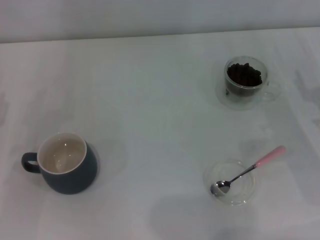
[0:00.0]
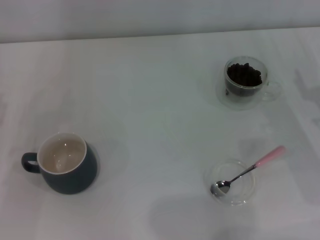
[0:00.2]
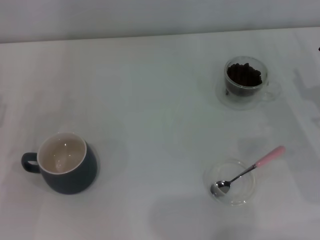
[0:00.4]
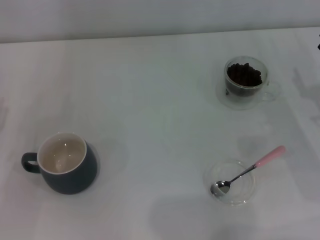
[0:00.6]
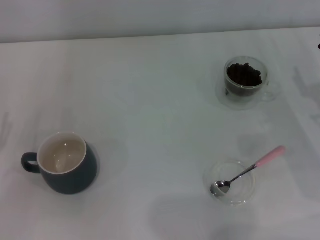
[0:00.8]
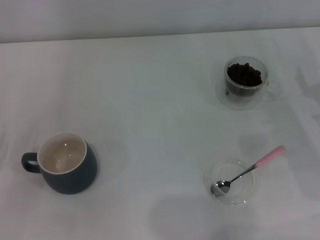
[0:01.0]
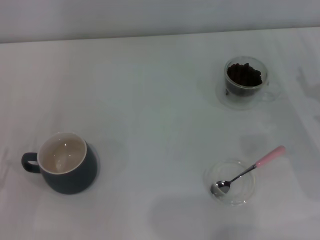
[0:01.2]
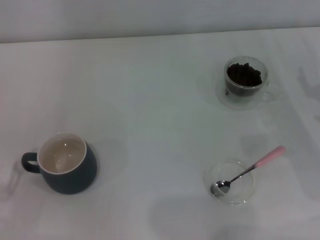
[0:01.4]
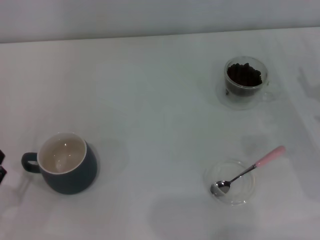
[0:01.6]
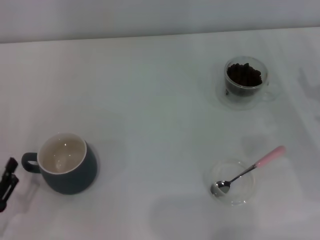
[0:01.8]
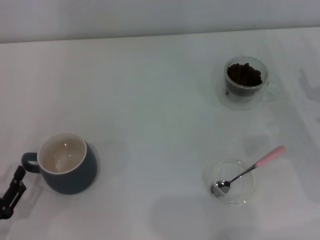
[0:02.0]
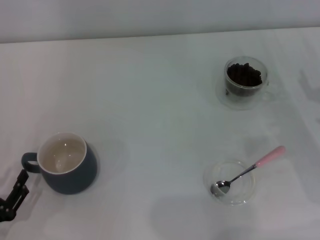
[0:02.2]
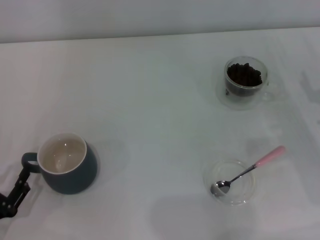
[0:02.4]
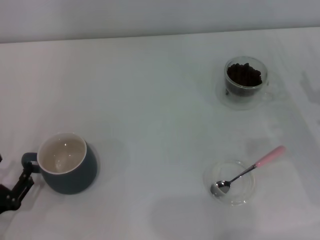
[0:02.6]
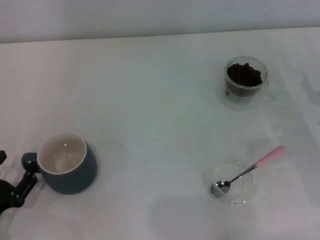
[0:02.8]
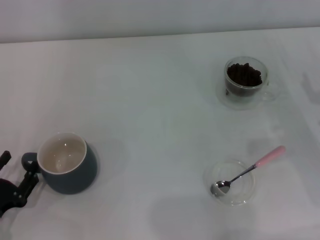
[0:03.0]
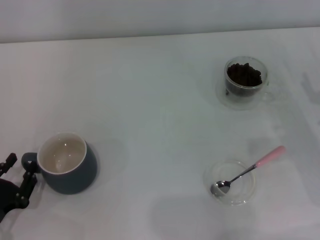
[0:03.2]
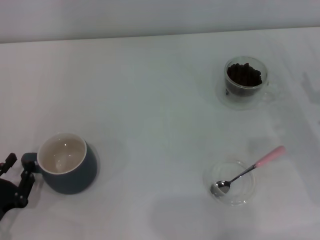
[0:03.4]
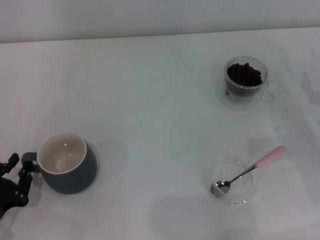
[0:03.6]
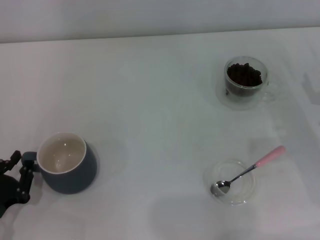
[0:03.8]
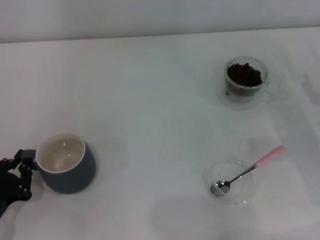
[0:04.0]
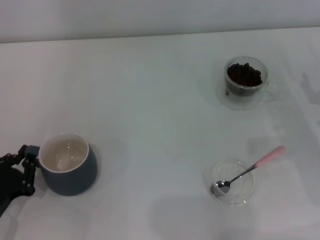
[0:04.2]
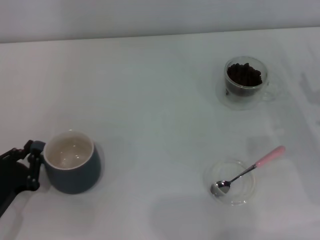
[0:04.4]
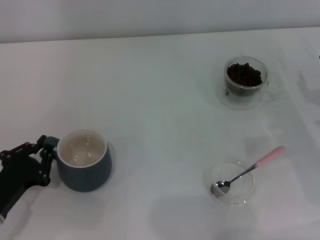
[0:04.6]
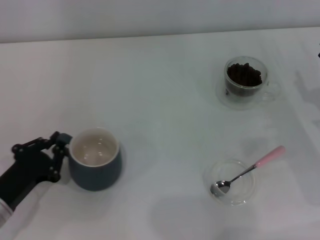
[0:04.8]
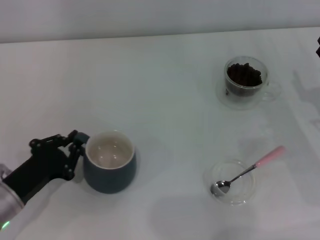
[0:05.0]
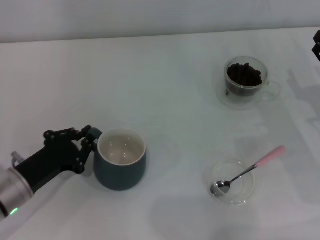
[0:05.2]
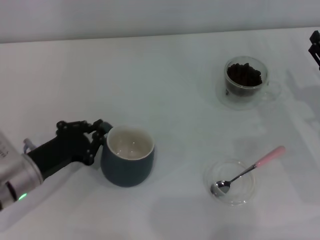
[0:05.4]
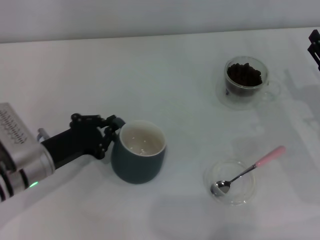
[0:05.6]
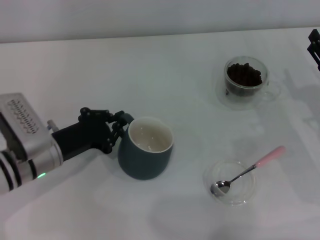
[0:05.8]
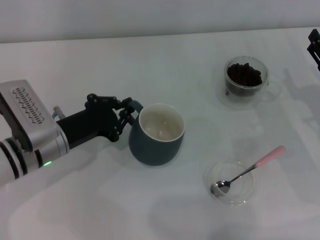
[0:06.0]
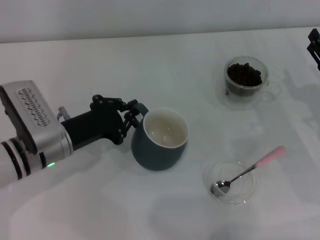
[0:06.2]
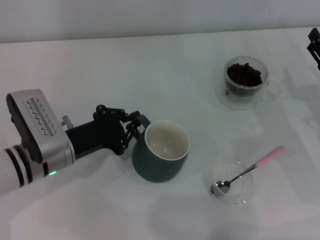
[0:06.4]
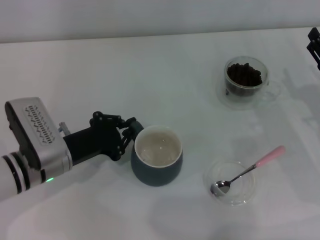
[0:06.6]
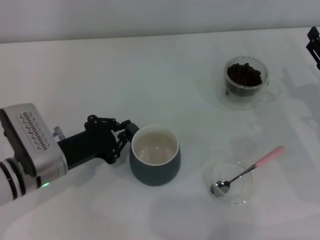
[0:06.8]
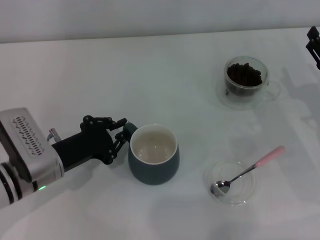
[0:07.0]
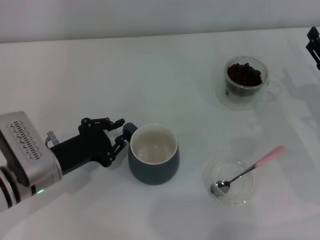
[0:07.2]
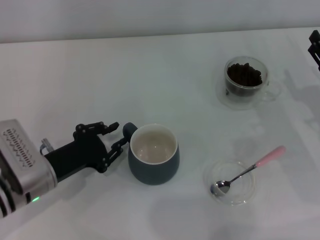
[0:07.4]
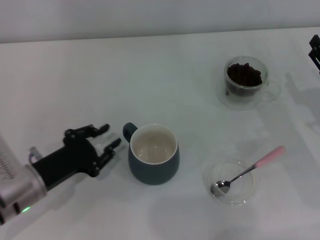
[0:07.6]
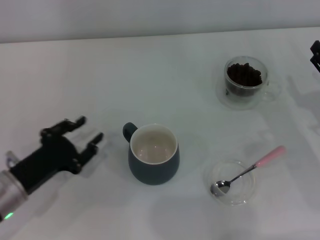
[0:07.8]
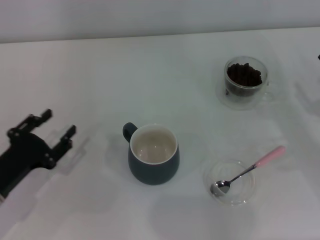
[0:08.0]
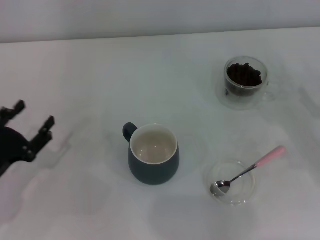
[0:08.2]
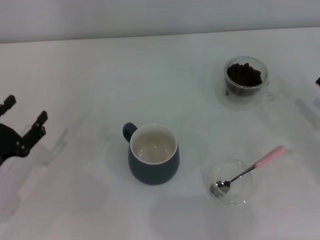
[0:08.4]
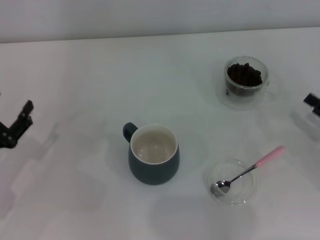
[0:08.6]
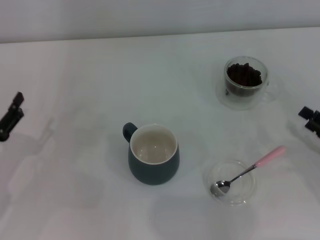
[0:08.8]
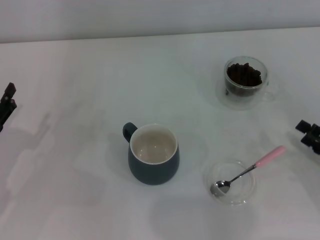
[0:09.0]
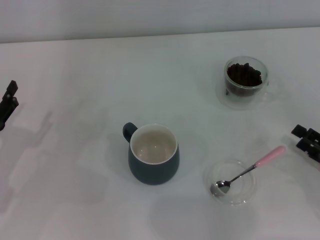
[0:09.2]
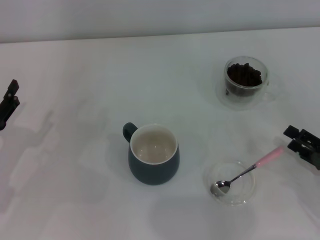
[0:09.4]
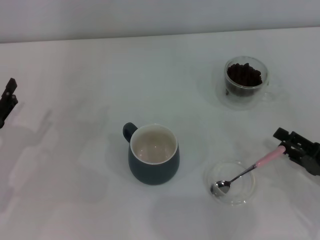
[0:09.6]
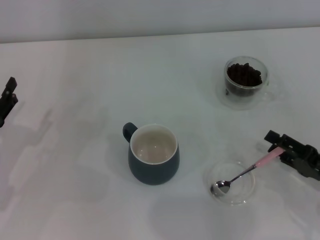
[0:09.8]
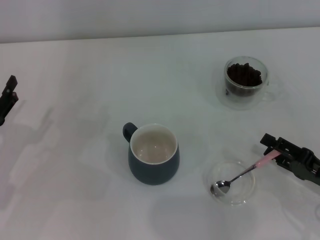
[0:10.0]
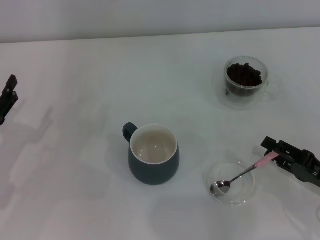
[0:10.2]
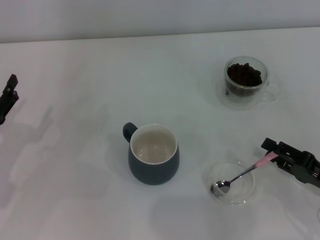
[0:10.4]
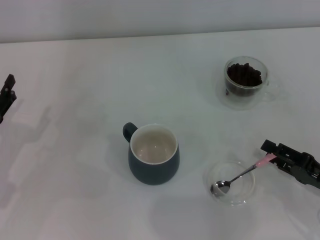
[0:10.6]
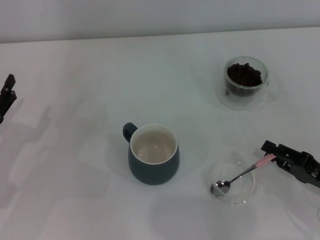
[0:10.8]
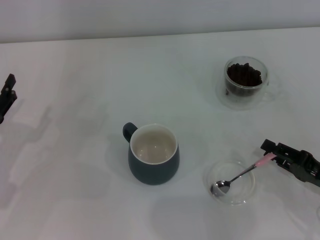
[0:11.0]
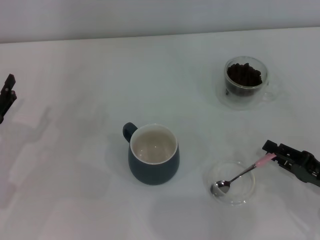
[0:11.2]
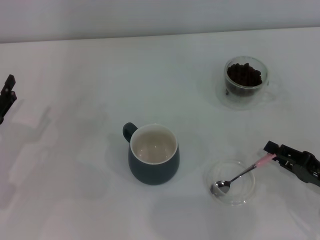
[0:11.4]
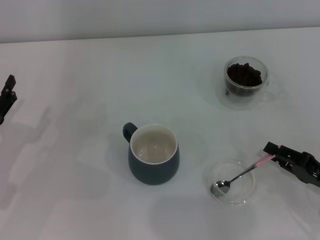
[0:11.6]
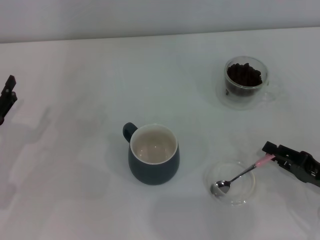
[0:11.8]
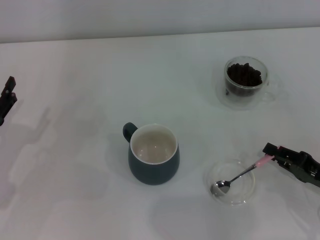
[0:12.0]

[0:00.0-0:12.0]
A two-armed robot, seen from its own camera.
Task of the whole recording: Use a pink spoon to take out the coffee beans from the glass and pour them into the gray cup.
Step, 0:00.0 to 0:07.6: Move the cup to the center of view with the left gripper.
0:01.6 to 0:03.0: The grippers make only small movements.
0:03.0 to 0:04.4: The left gripper closes.
0:04.4 to 0:06.0: The left gripper heads forward and to the right, covering about 15 cm.
0:06.0 to 0:07.6: The left gripper is displaced backward by approximately 5 cm, and opens.
0:07.6 to 0:09.0: The left gripper goes roughly 10 cm to the left, and opens up. Meanwhile the right gripper goes some 10 cm backward.
0:09.0 to 0:10.4: The grippers make only small movements.
0:10.4 to 0:12.0: The right gripper closes.

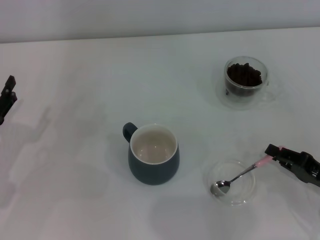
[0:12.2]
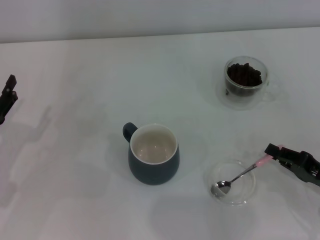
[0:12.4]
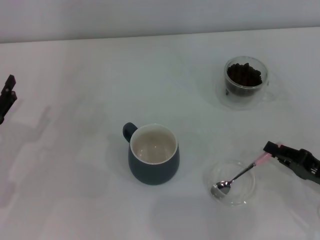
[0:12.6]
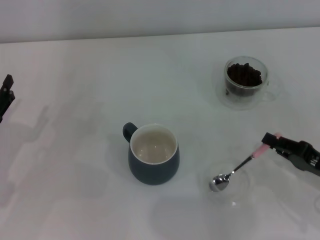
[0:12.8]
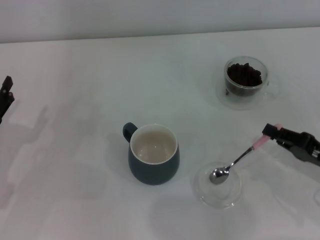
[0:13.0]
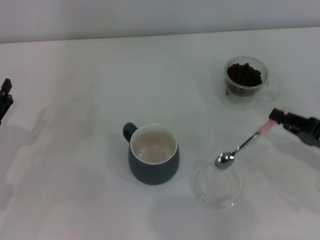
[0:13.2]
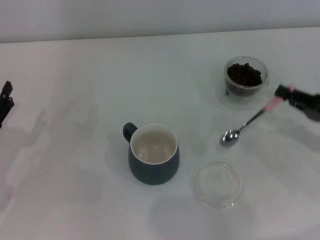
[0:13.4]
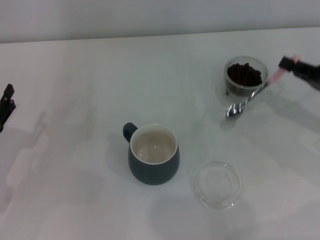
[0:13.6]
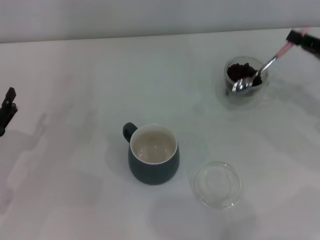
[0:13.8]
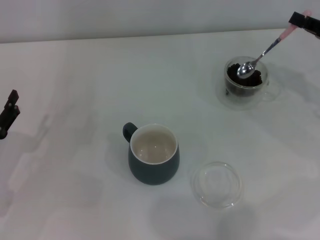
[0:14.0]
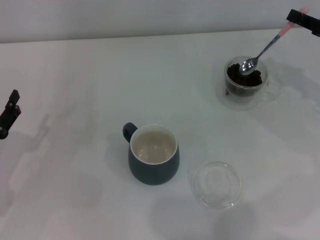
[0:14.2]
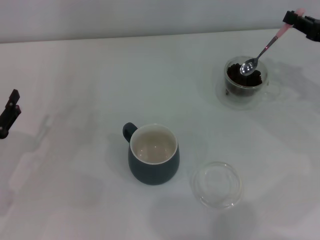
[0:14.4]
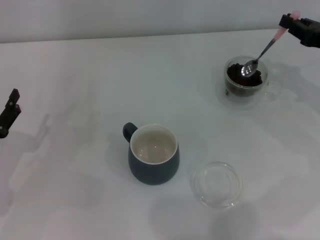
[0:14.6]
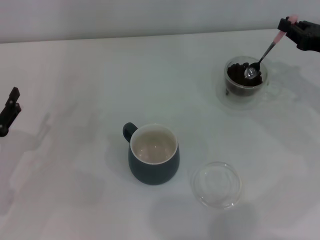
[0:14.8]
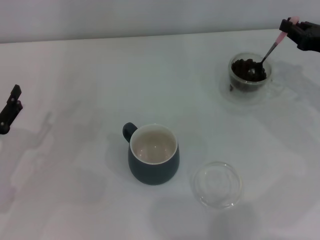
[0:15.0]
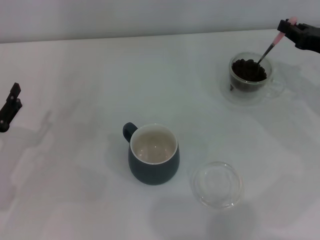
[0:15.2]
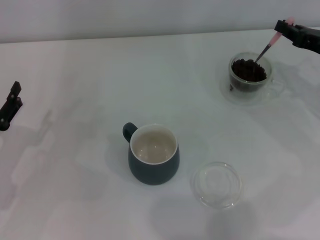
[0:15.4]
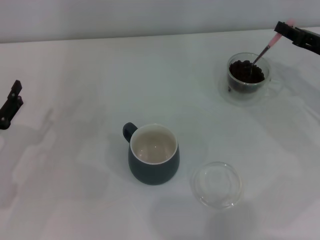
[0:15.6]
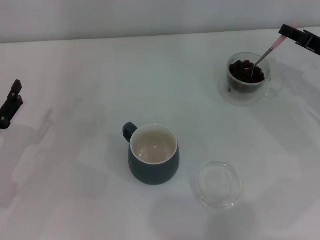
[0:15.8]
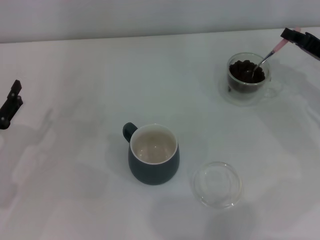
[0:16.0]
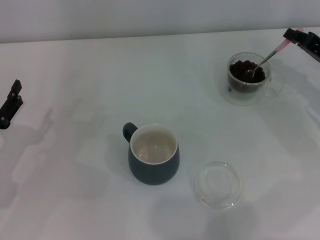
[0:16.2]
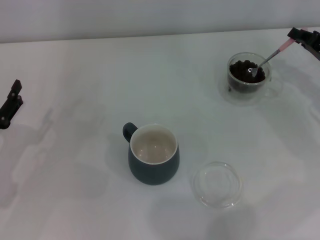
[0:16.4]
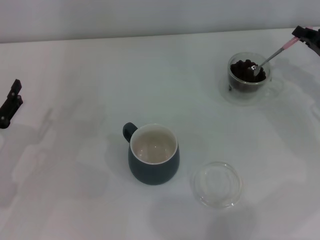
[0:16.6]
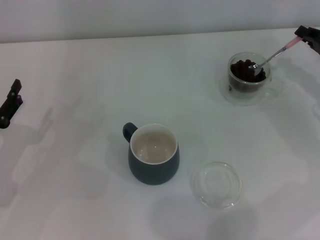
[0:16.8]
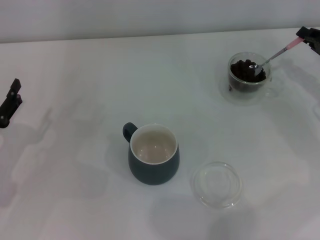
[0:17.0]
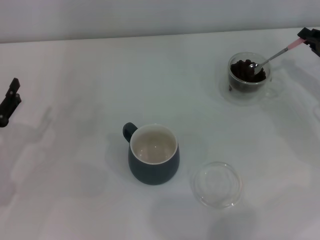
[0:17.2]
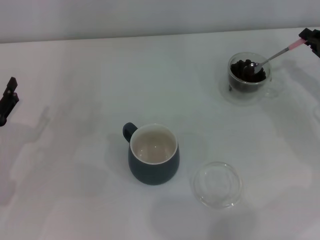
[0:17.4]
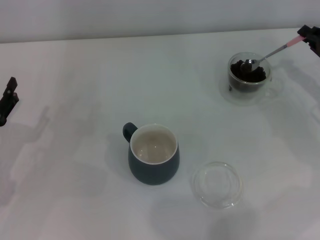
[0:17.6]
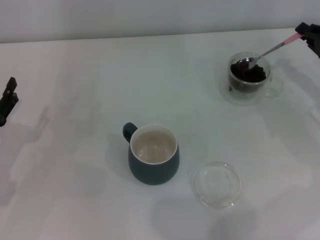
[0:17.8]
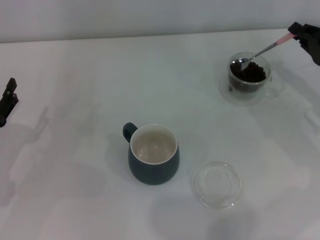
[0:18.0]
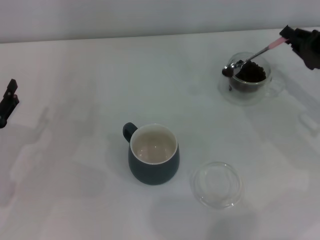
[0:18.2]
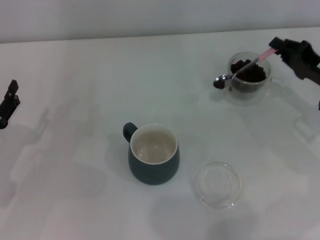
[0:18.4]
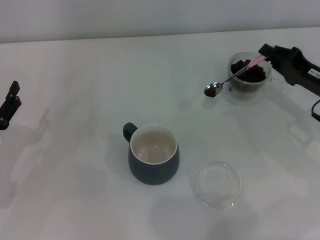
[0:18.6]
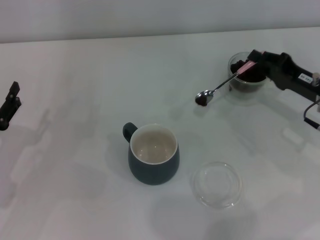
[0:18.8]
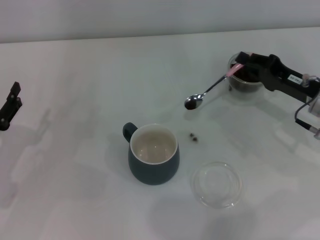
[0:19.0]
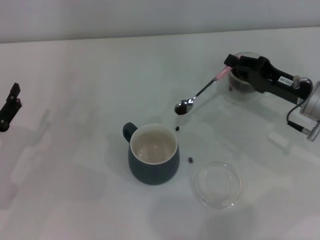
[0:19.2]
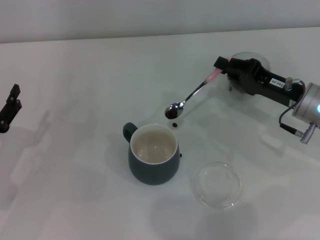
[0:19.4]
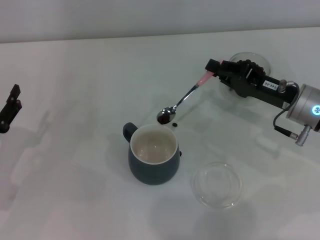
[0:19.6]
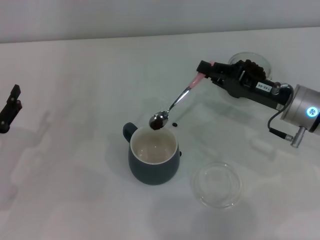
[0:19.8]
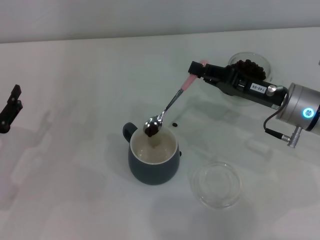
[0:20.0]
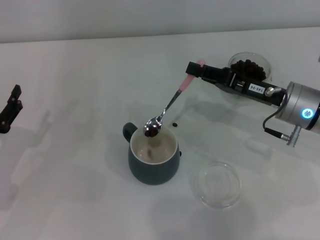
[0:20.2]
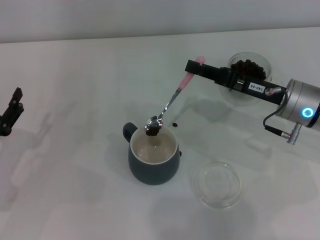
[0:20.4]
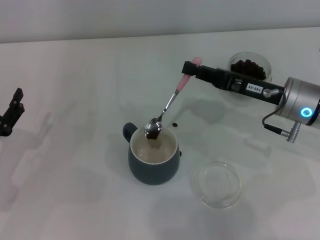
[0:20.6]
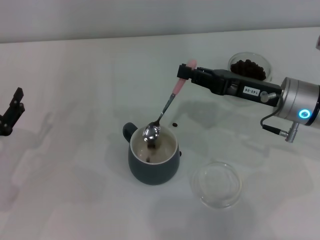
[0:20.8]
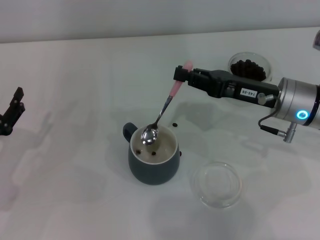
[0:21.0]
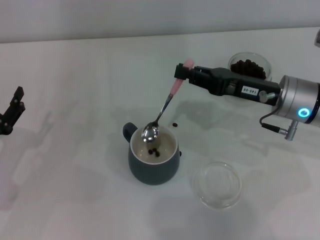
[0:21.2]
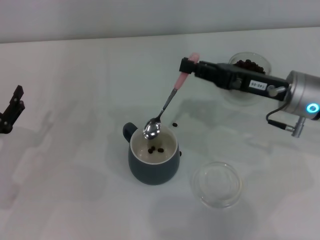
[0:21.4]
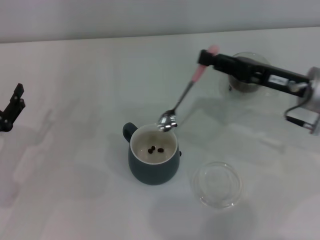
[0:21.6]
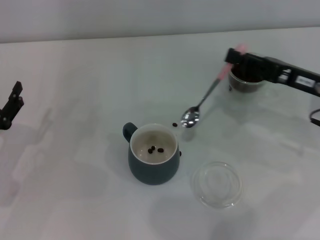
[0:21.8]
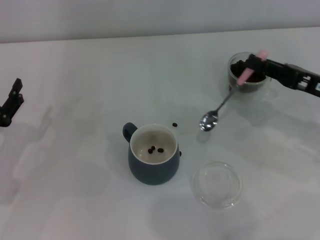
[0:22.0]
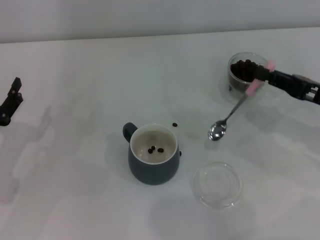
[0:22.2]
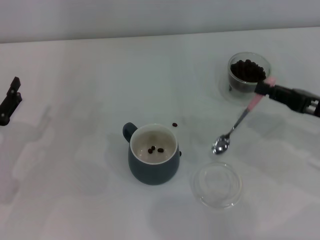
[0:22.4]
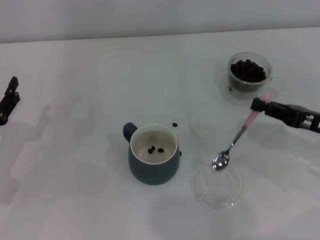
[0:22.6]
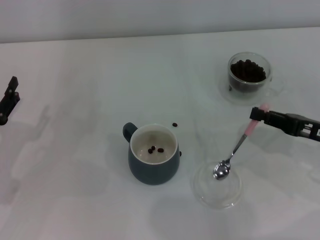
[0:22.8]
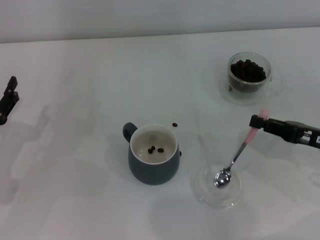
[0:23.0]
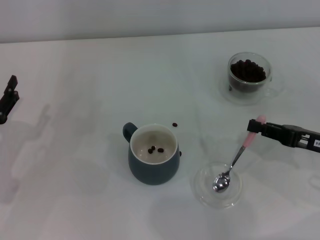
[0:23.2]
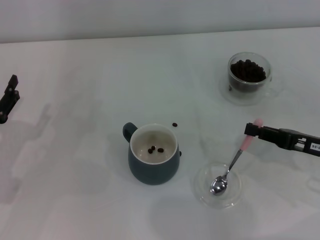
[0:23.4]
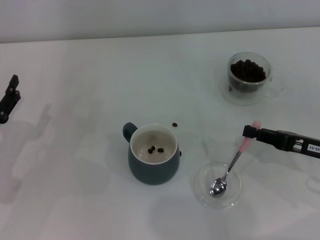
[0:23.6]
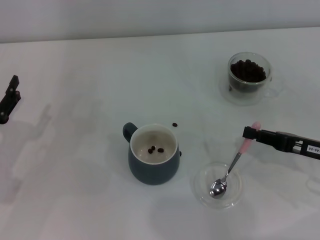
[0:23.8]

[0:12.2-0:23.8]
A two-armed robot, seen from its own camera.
Task of the whole recording: Use a pink spoon to take out the coffee beans from the glass and pour them into the gray cup.
Step, 0:13.4 to 0:21.6: Scoop a spoonful of beans into the cup with the right gripper.
0:12.2 to 0:13.6: The right gripper goes roughly 15 cm forward and upward.
0:13.6 to 0:15.0: The right gripper shifts some 5 cm forward.
0:16.6 to 0:18.0: The grippers move only a little.
0:18.0 to 0:19.4: The right gripper goes about 10 cm to the left.
0:21.0 to 0:22.4: The right gripper shifts approximately 10 cm to the right and backward.
0:22.4 to 0:23.8: The grippers move only a little.
